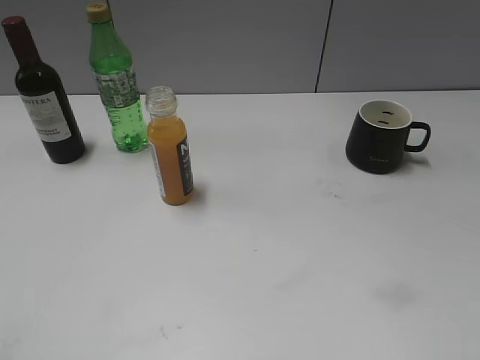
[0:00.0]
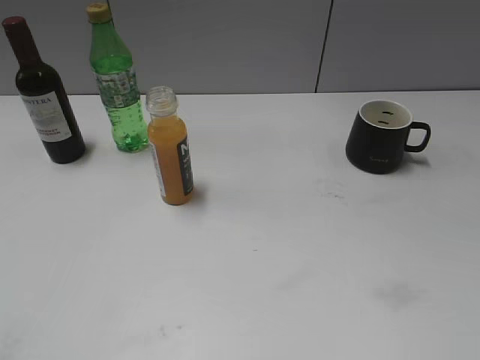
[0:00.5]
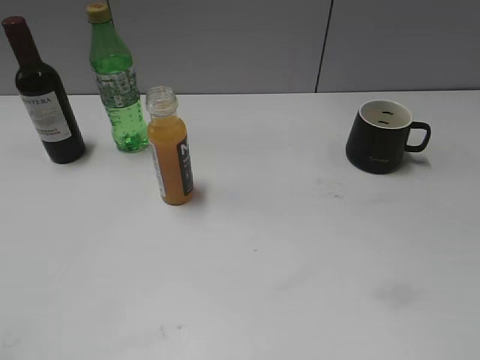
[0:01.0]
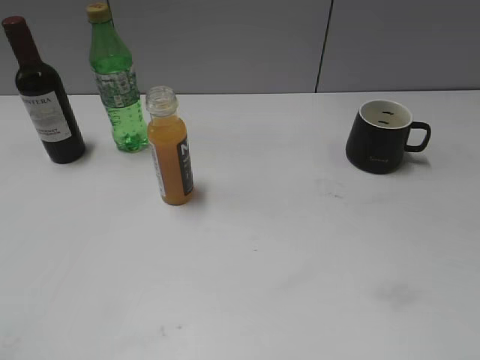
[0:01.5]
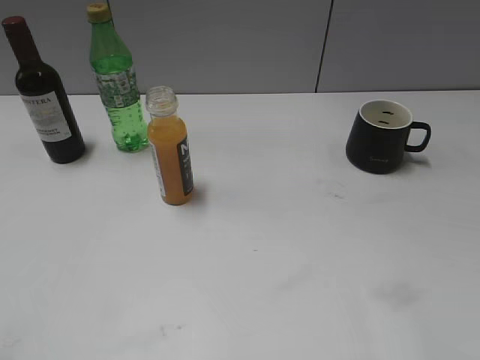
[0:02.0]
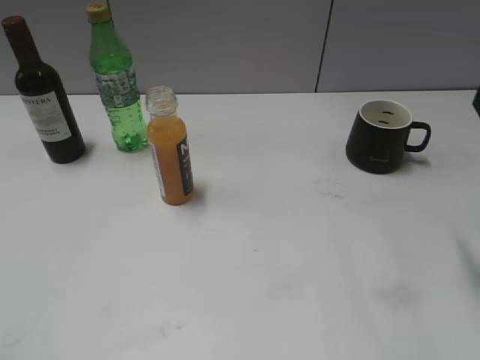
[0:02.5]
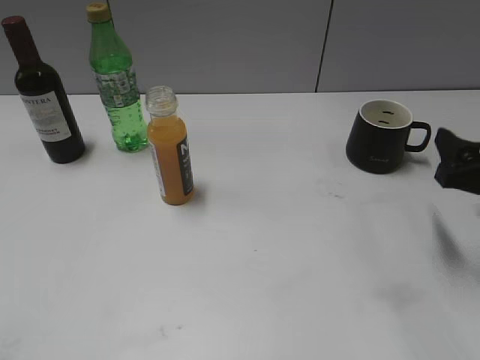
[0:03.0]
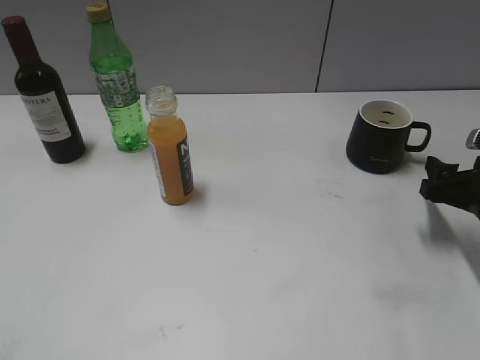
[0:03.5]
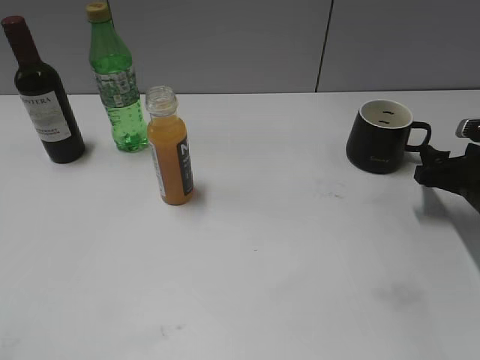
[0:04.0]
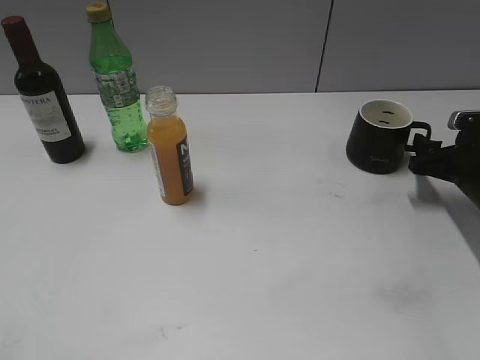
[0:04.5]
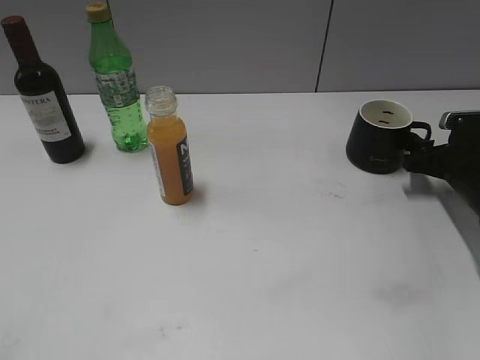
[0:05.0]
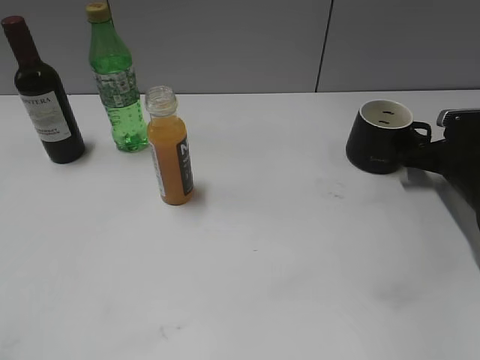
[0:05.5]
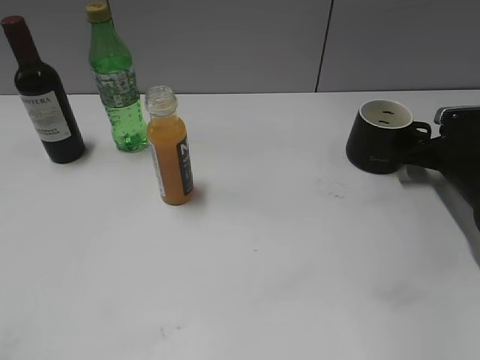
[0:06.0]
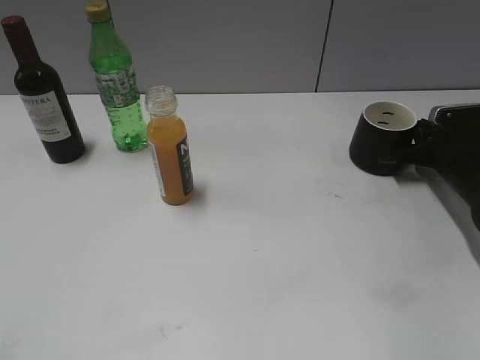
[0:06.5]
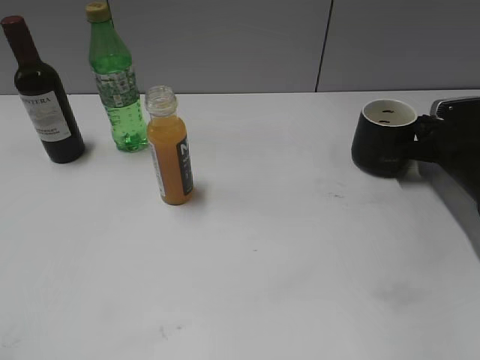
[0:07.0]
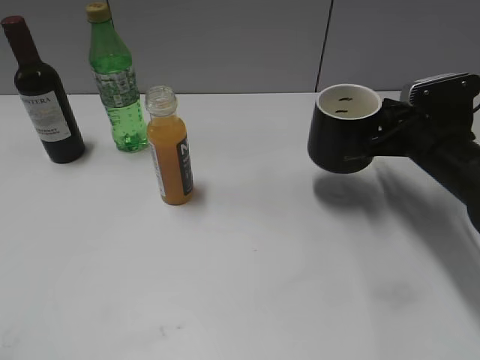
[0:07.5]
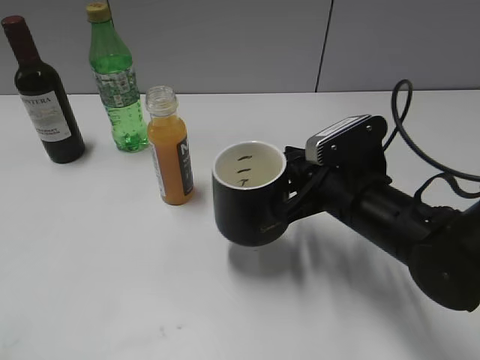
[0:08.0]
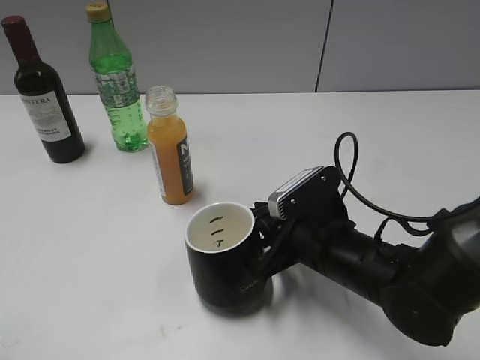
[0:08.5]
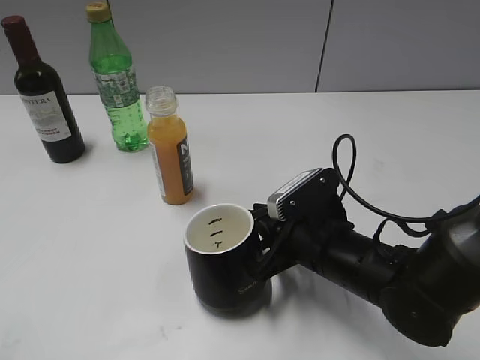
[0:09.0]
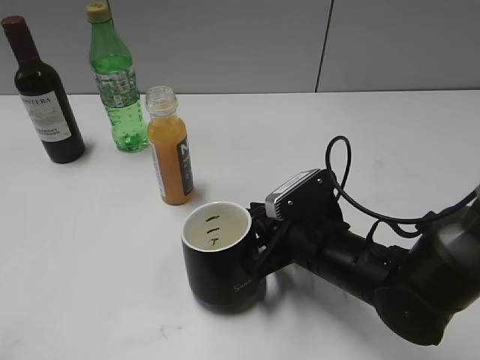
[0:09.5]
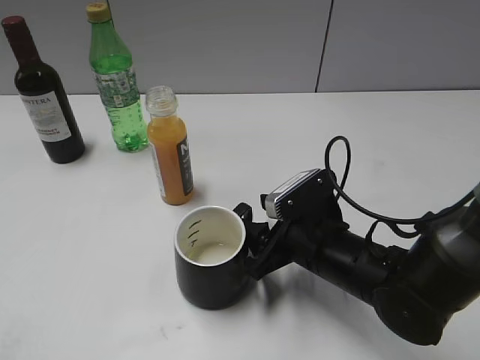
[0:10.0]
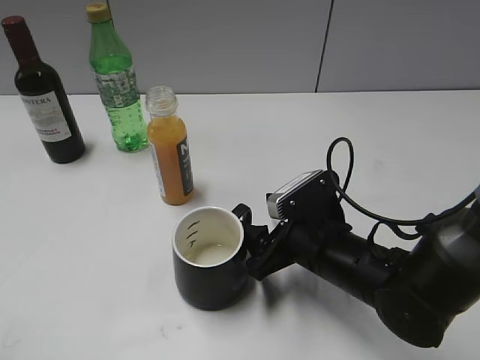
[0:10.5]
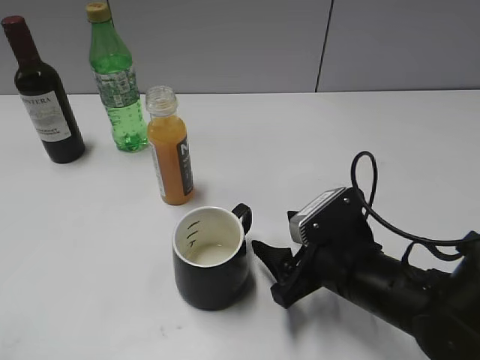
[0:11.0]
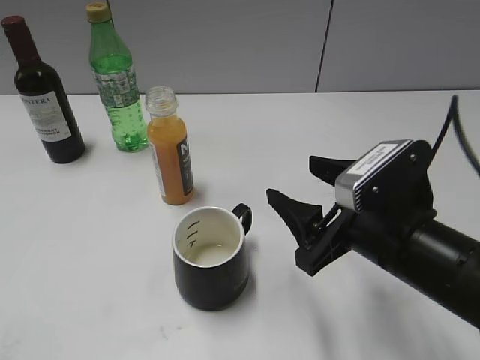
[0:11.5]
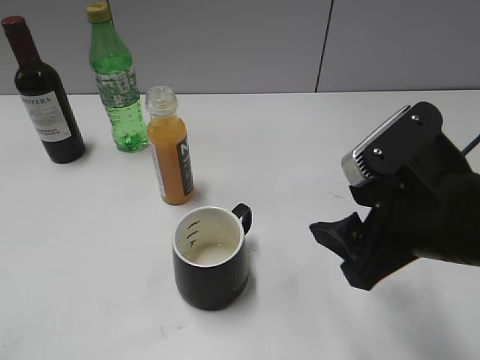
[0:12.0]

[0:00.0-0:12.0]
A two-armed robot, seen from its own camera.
Step, 0:02.5 to 0:06.5: Grasp the black cup with right gripper.
Step, 0:07.0 to 0:10.0: Place the black cup in the center of view with right gripper.
0:02.0 to 0:04.0: The right gripper moves forward and downward, some 30 cm.
0:04.0 to 0:06.0: The right gripper shifts some 5 cm forward.
0:06.0 to 0:08.0: The right gripper shifts about 20 cm to the left and backward, and closes its fingers.
0:08.0 to 0:10.0: The right gripper shifts about 5 cm downward, and opens up.
0:10.0 to 0:12.0: The right gripper goes some 15 cm upward and backward.

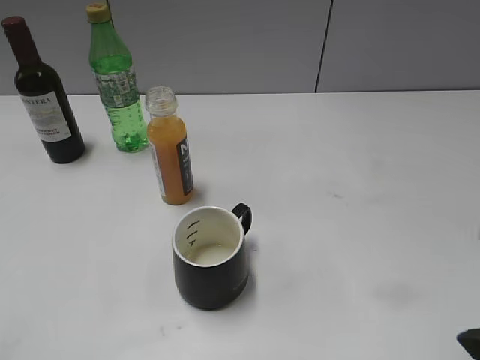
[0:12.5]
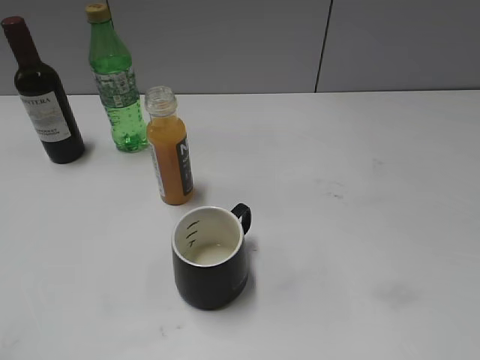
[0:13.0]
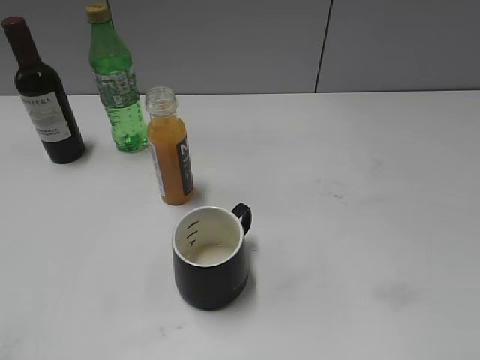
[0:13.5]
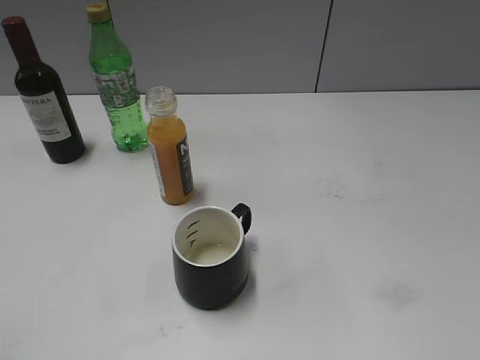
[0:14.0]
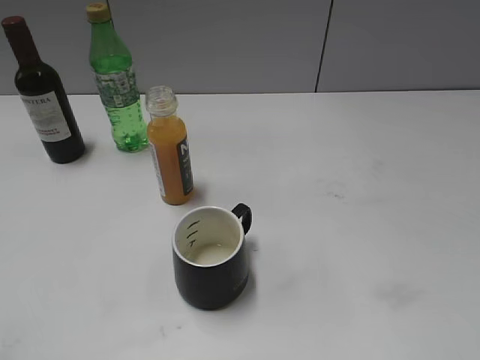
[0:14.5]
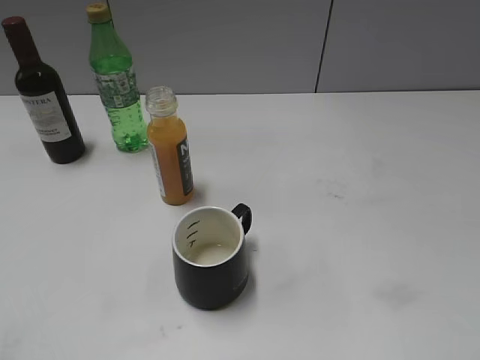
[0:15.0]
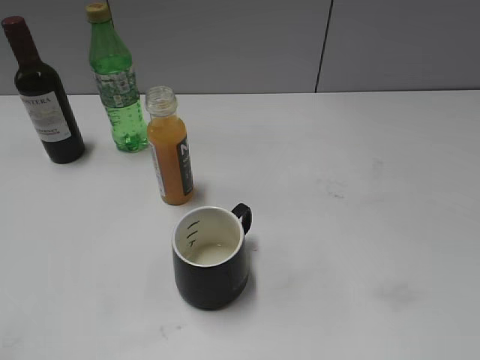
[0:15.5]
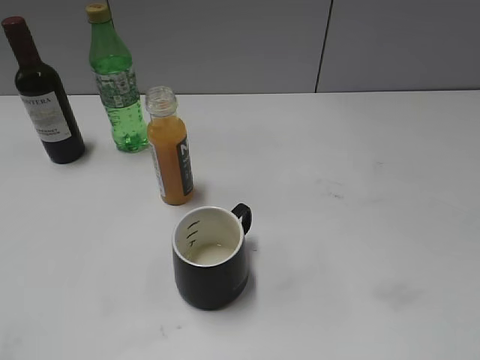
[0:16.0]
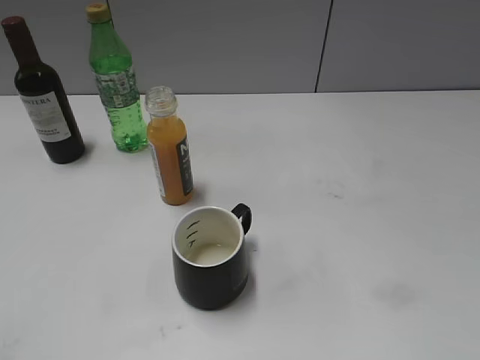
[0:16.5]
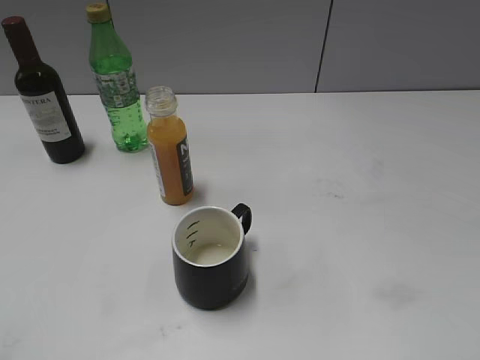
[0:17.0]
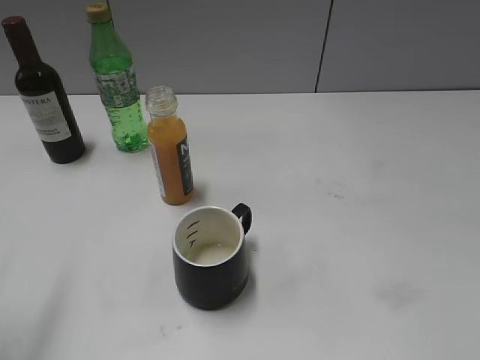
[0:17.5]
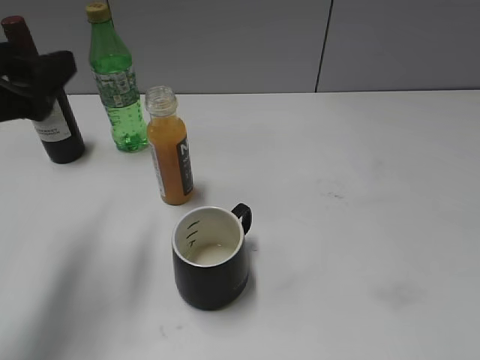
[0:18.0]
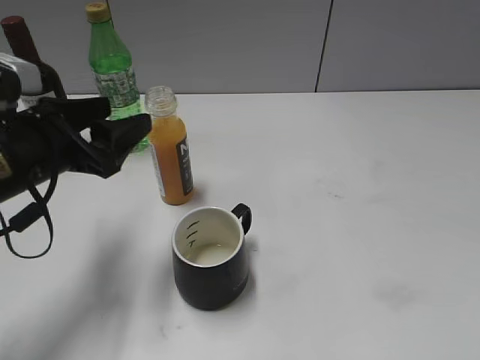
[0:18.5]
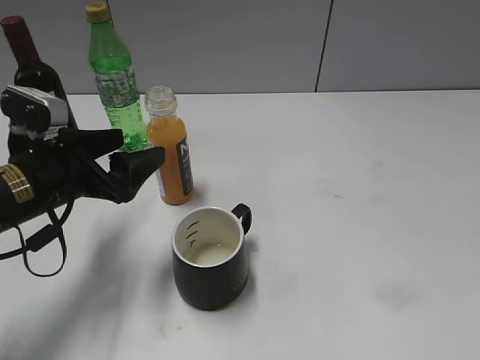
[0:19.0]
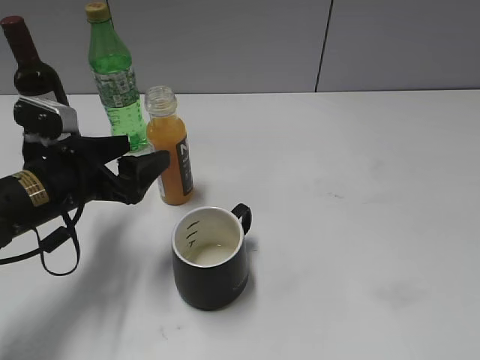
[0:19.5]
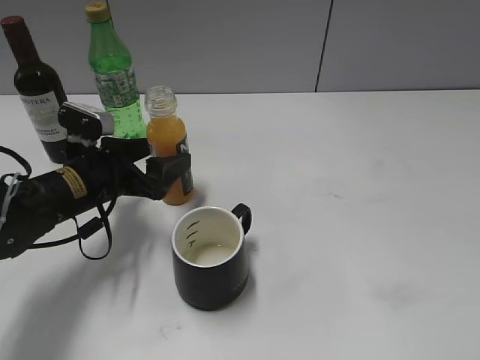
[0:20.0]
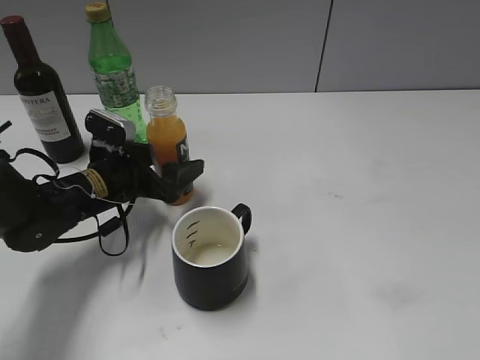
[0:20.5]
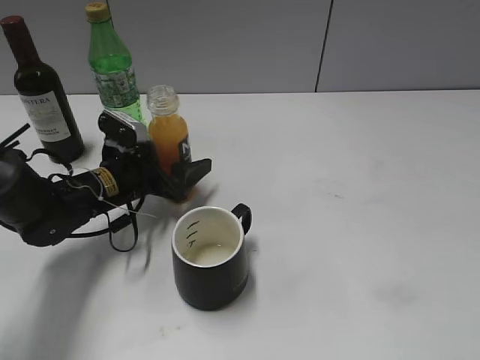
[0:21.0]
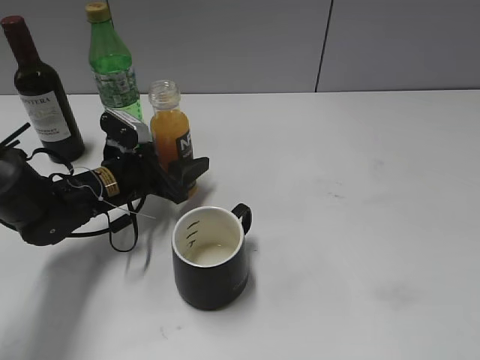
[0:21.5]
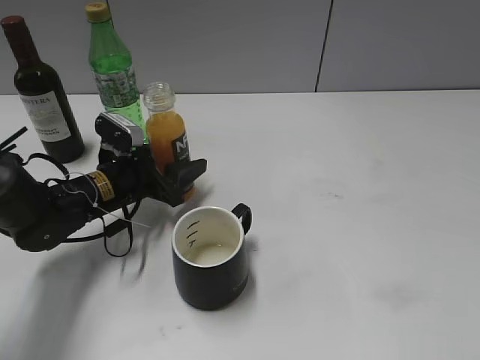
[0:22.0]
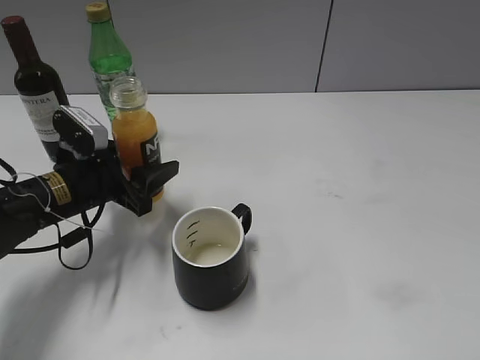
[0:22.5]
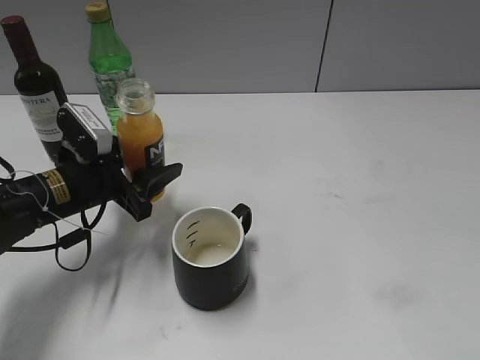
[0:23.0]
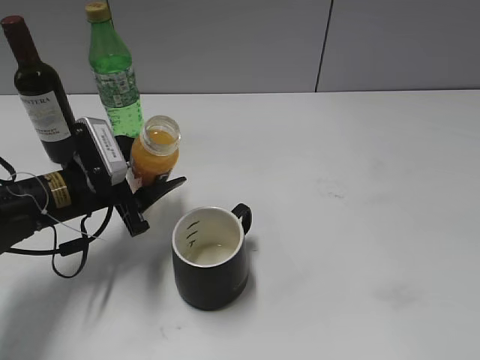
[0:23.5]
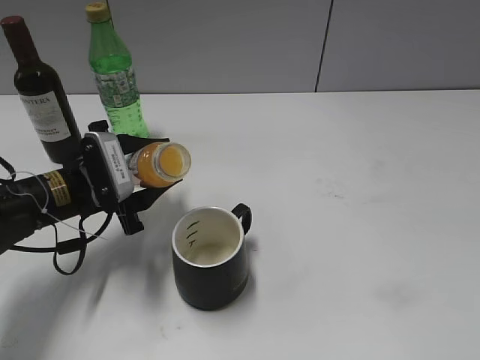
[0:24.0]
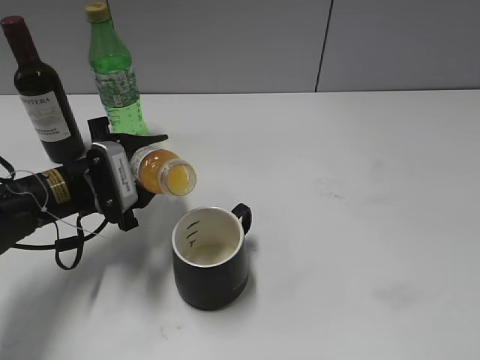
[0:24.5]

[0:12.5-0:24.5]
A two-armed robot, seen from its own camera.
Step, 0:12.5 to 0:21.0: Grasp the bottle with orange juice with left gripper.
0:16.5 to 0:18.5: The left gripper goes approximately 30 cm forward and to the right.
0:18.5 to 0:20.5: The left gripper is displaced downward and forward by about 15 cm.
0:20.5 to 0:22.5: The left gripper closes.

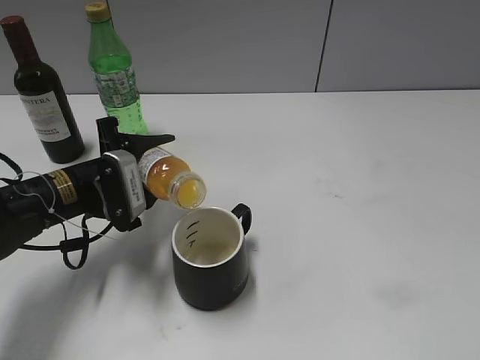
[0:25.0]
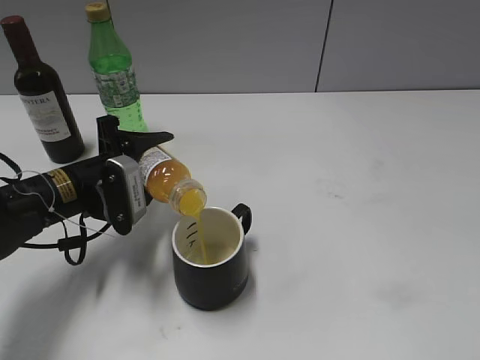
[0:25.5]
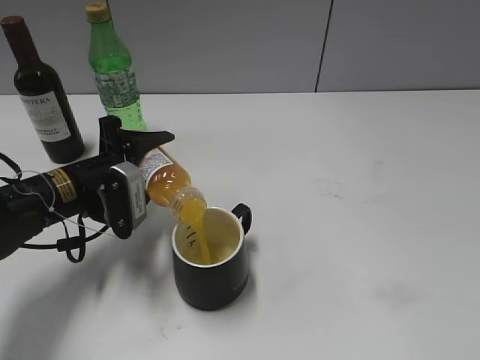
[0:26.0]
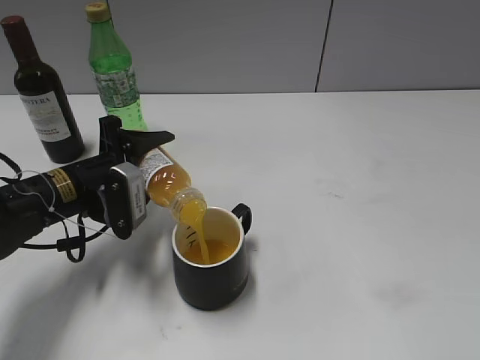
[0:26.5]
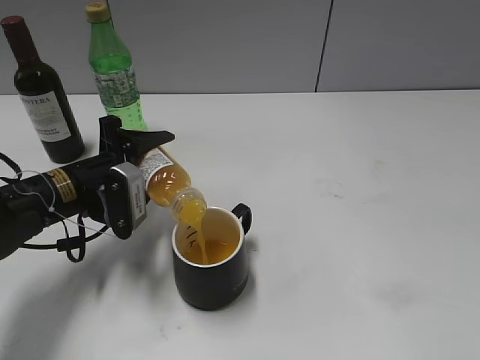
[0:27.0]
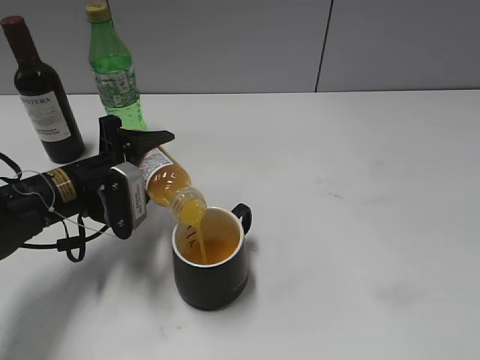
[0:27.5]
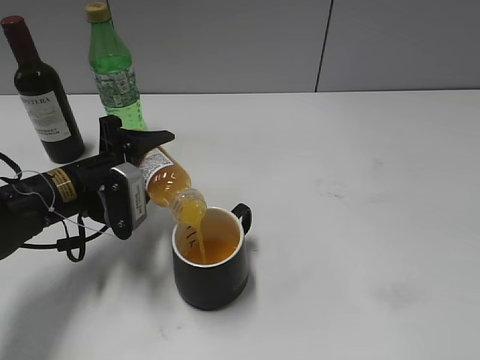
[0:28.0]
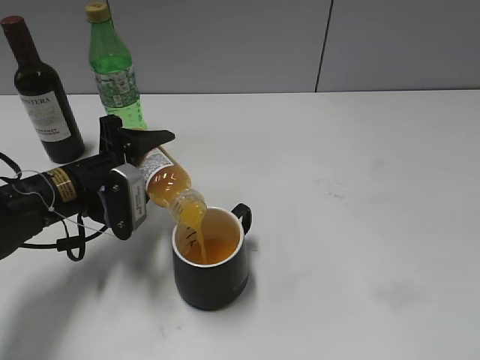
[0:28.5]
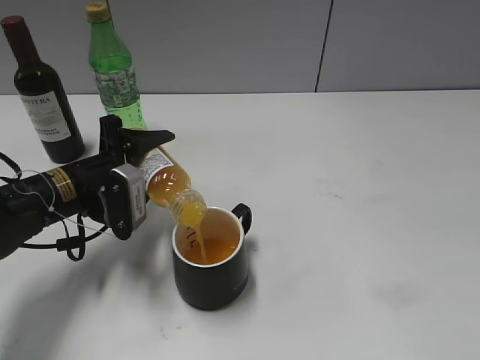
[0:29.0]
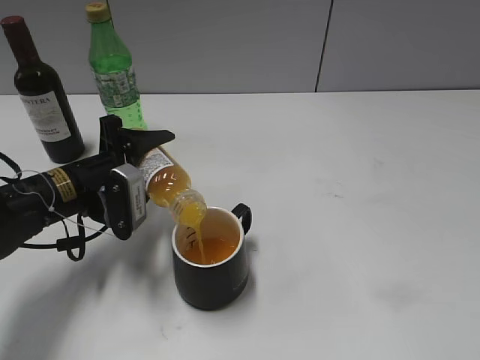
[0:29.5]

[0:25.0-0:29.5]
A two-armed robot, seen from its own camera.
0:25.0 to 0:27.0: The grippers move only a little.
0:27.0 to 0:29.5: Neither gripper changes place.
